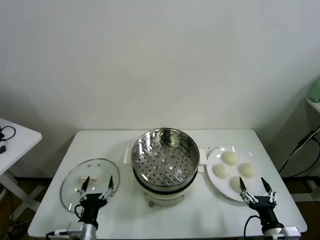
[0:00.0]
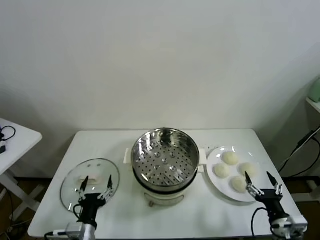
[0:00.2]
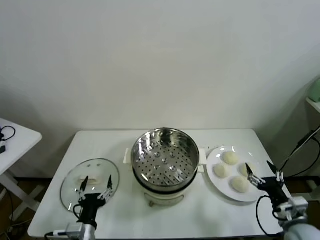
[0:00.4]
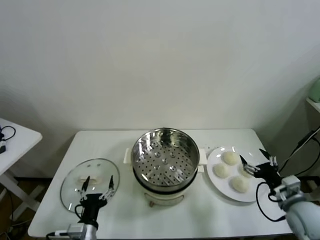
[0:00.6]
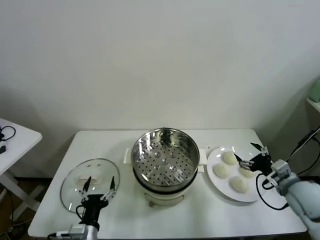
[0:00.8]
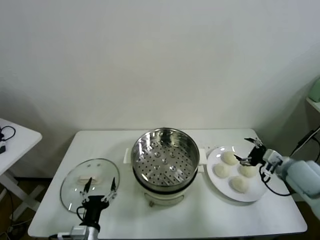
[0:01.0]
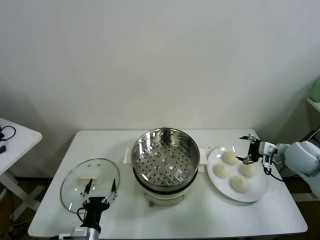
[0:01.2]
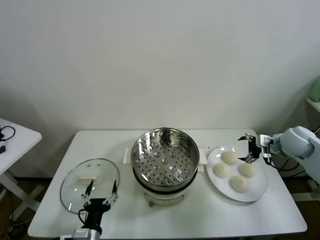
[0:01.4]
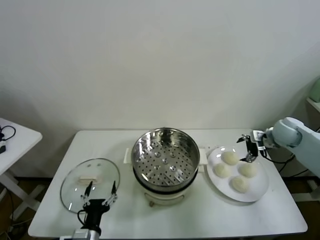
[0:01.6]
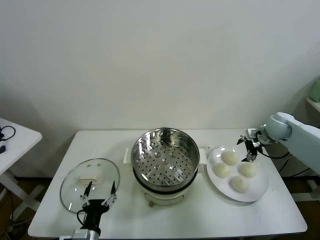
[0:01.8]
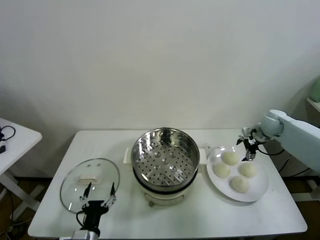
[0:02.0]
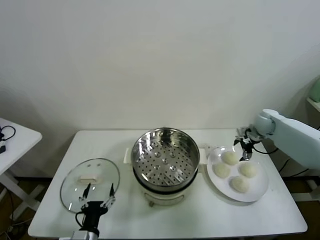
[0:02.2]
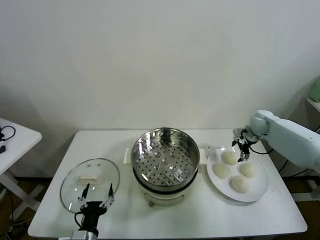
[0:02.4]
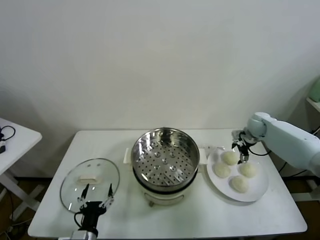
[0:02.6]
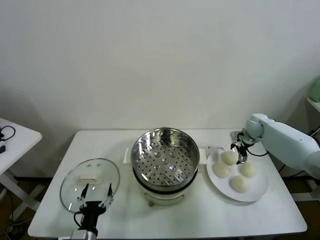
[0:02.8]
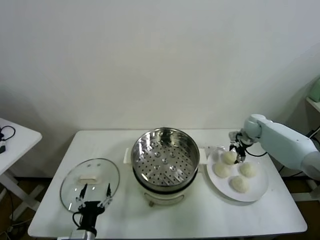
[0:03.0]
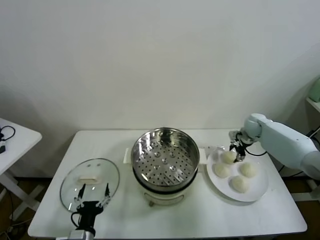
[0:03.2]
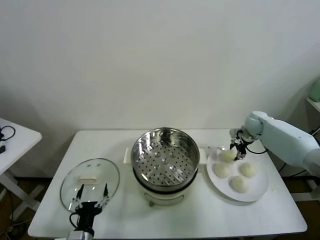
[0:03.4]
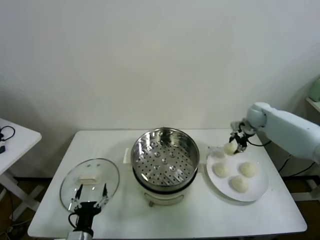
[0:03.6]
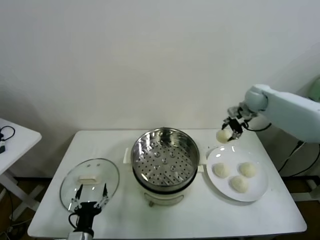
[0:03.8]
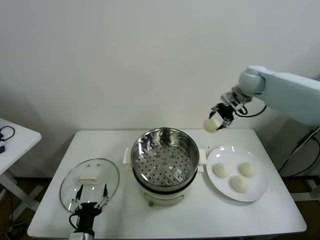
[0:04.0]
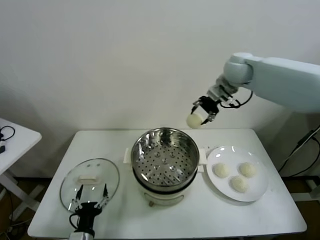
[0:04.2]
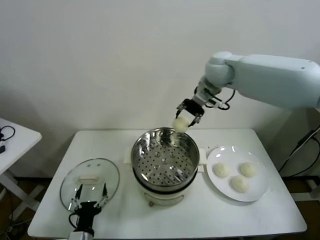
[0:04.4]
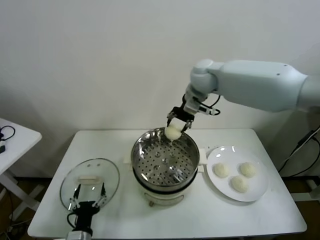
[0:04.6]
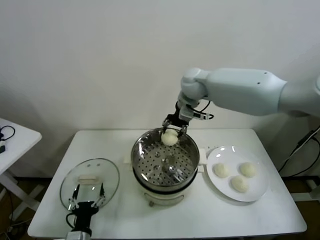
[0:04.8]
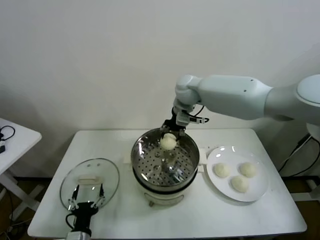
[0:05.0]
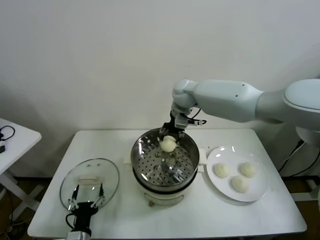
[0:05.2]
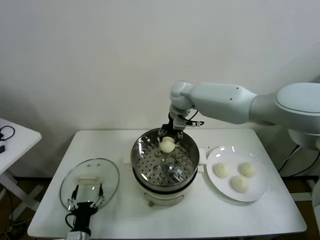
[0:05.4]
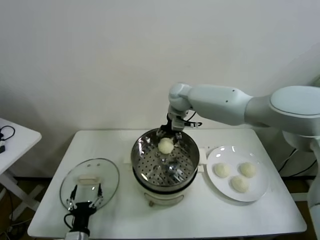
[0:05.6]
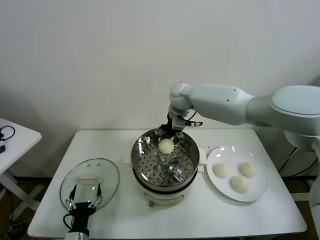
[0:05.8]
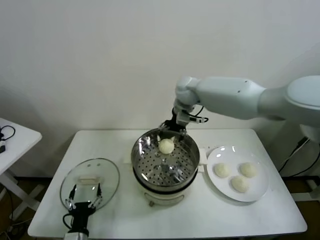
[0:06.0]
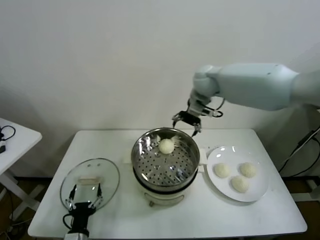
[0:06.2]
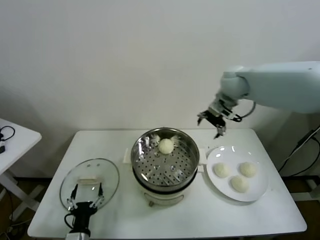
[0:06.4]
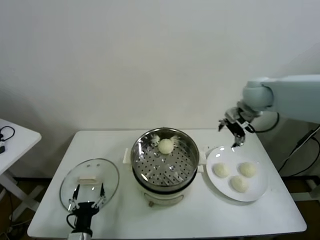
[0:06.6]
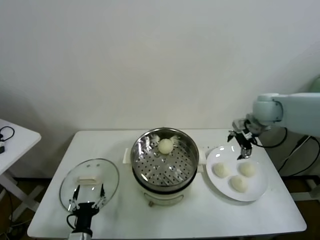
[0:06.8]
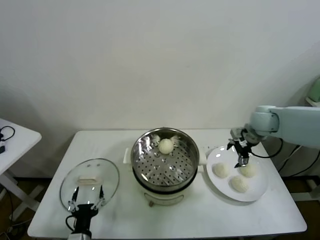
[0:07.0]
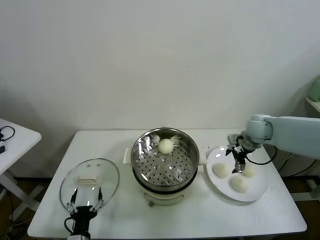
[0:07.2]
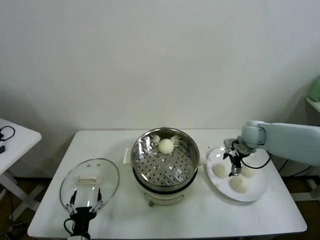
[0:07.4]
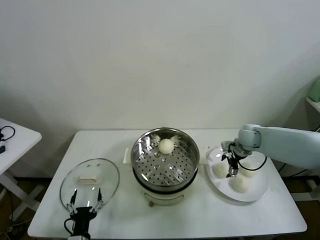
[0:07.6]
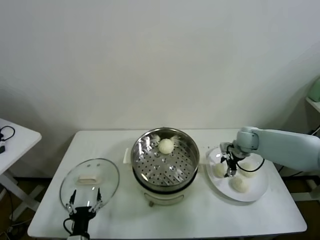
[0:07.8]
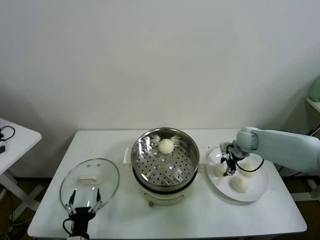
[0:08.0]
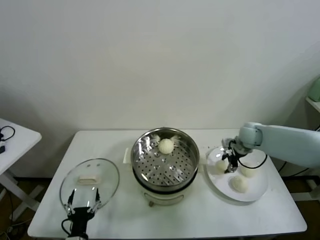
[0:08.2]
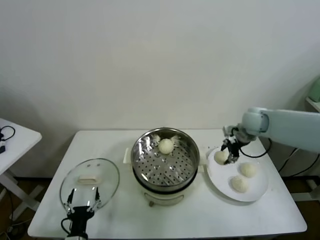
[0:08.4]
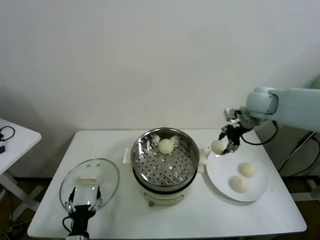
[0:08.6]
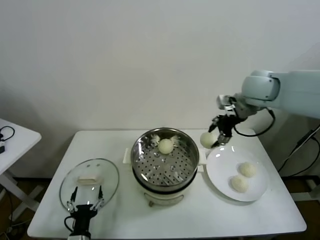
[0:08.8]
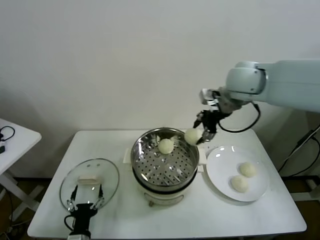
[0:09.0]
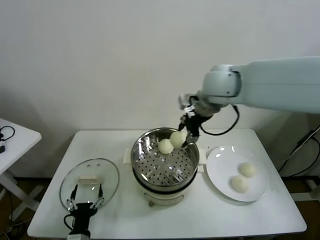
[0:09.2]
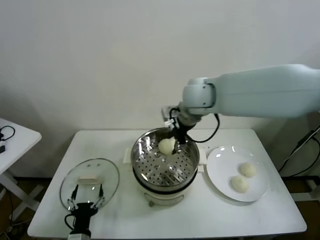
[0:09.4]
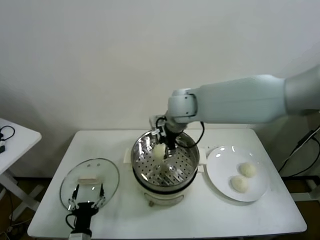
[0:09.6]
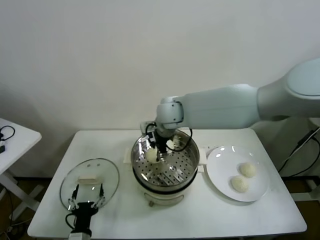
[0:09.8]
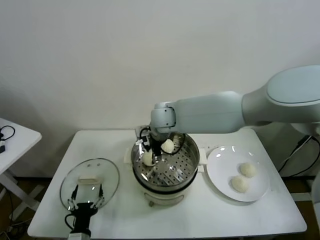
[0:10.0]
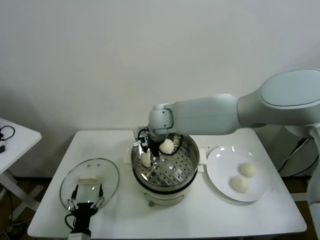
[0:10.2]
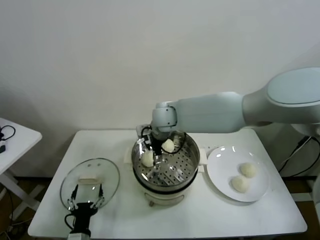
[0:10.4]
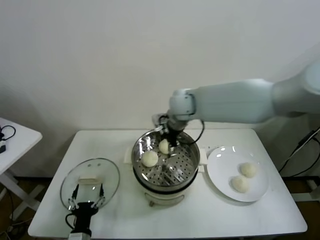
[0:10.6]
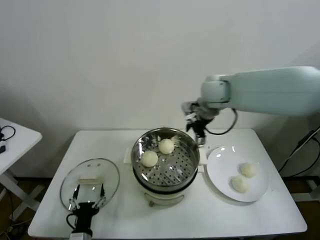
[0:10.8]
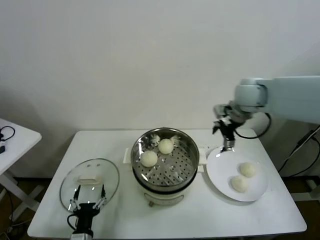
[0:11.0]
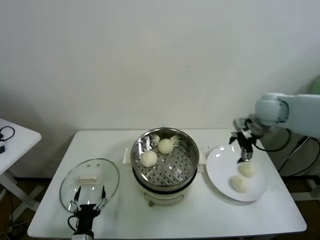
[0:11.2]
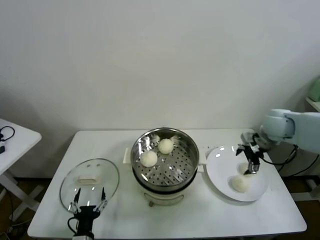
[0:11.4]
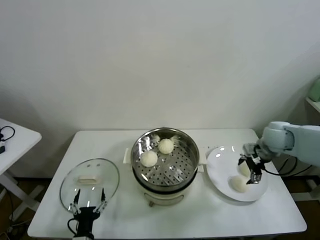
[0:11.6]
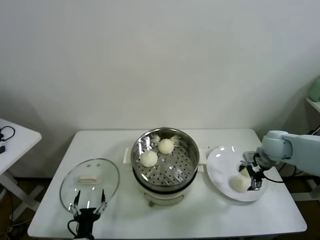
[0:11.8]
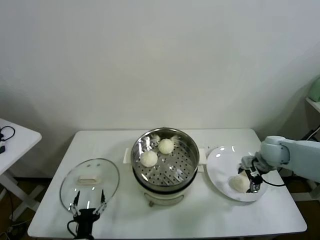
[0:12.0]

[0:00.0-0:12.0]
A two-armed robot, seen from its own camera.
Task of the whole recording: take steamed baozi put them in steamer.
Step, 0:00.0 to 0:03.0: Grasp the baozi in the plate with right gripper.
Step, 0:03.2 to 0:05.8: Place the baozi on the steamer with right gripper.
Step, 0:06.0 to 0:08.0: Grasp the baozi in the plate with right gripper.
Step, 0:08.2 to 0:10.2: Place the baozi on the steamer with right gripper.
0:01.6 to 0:03.0: The right gripper is displaced forward and downward by about 10 cm, and closes.
0:03.0 to 0:04.4: The right gripper moves upward and to the left, approximately 35 cm.
0:04.4 to 0:06.0: The right gripper goes some 10 cm downward and to the left, and opens.
0:06.0 to 0:07.6: The right gripper moves to the right and downward, approximately 30 cm.
0:07.6 to 0:09.0: The right gripper travels upward and to the left by some 30 cm, and closes.
0:09.0 to 0:10.4: The right gripper goes approximately 25 cm to the left and downward, and opens up.
0:10.4 to 0:12.0: The right gripper travels to the right by about 40 cm.

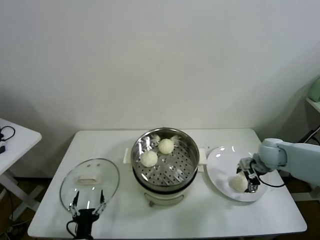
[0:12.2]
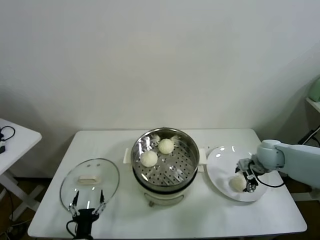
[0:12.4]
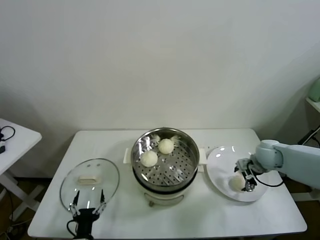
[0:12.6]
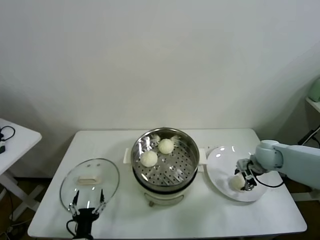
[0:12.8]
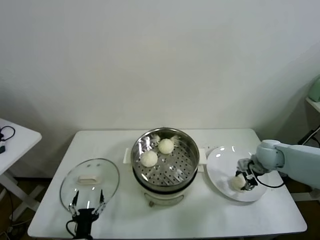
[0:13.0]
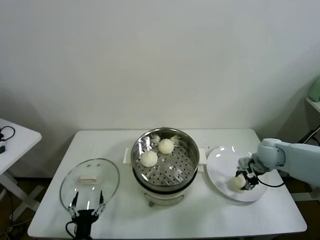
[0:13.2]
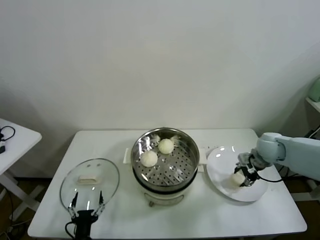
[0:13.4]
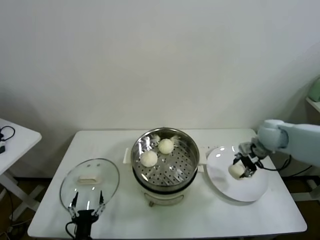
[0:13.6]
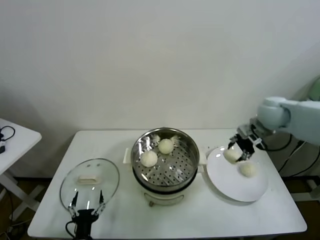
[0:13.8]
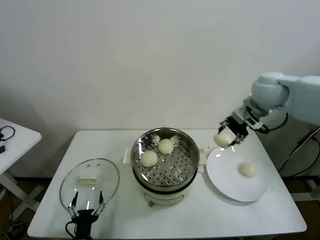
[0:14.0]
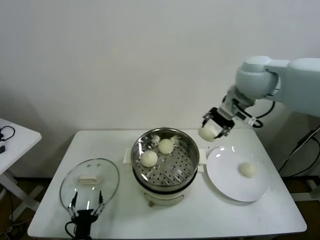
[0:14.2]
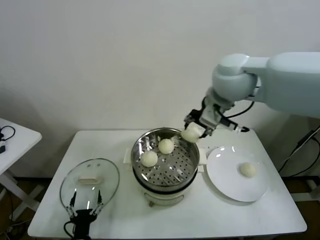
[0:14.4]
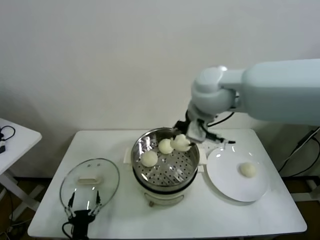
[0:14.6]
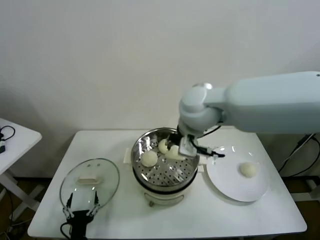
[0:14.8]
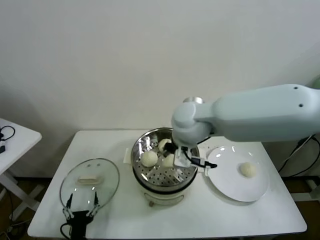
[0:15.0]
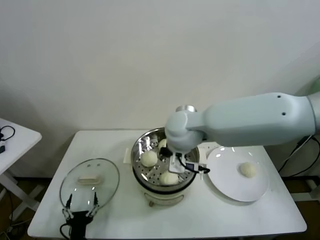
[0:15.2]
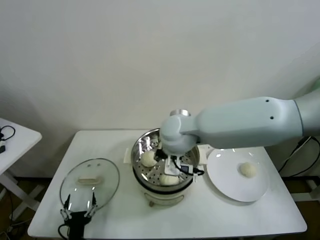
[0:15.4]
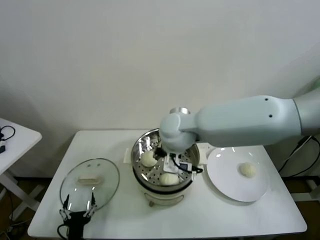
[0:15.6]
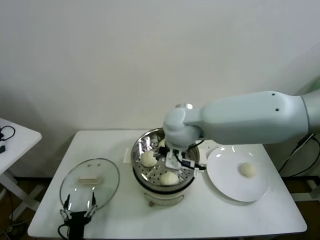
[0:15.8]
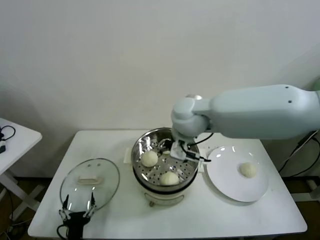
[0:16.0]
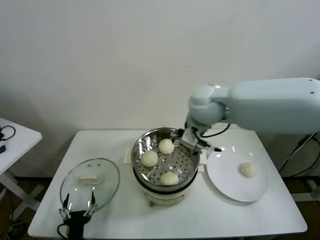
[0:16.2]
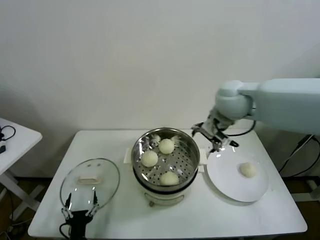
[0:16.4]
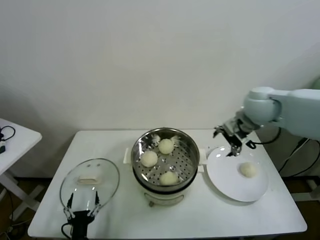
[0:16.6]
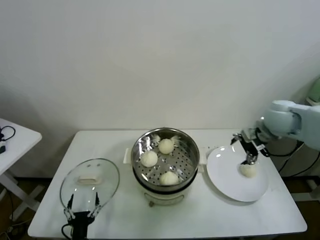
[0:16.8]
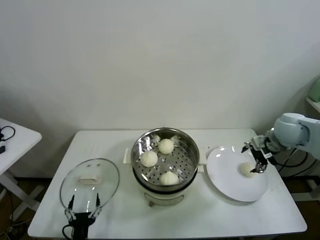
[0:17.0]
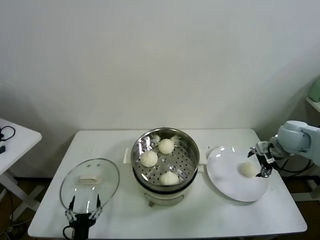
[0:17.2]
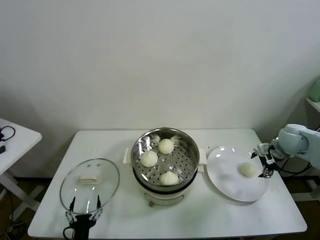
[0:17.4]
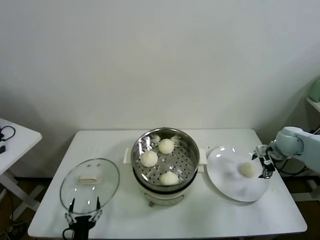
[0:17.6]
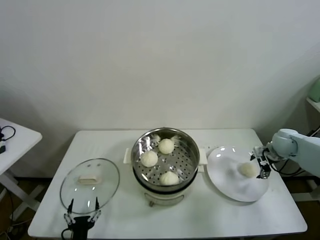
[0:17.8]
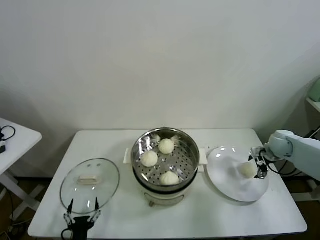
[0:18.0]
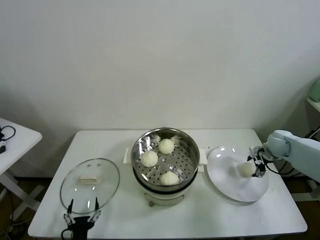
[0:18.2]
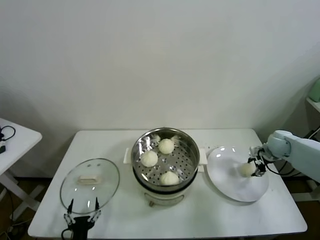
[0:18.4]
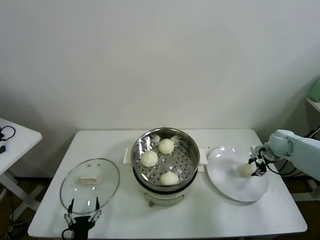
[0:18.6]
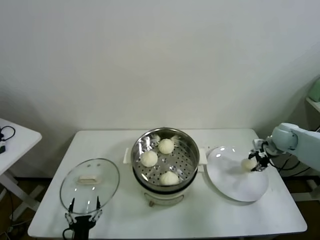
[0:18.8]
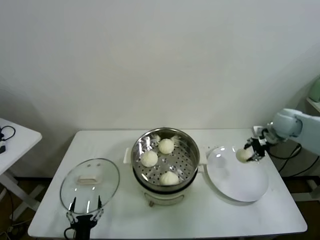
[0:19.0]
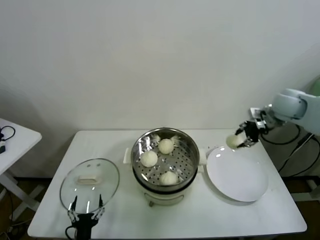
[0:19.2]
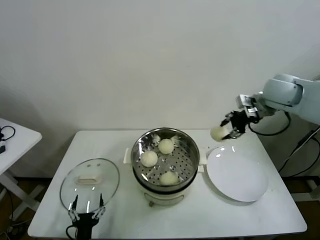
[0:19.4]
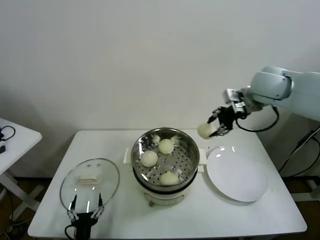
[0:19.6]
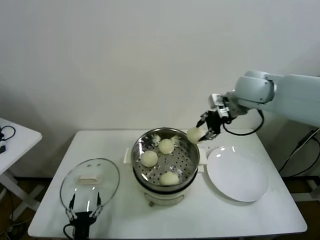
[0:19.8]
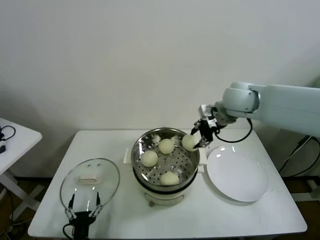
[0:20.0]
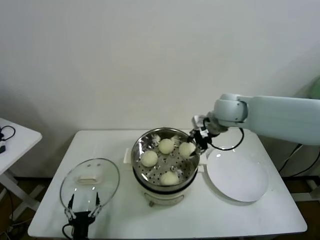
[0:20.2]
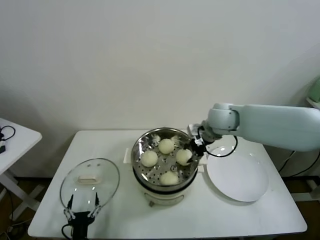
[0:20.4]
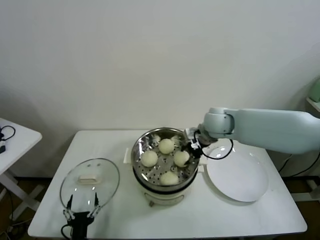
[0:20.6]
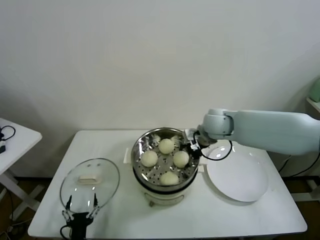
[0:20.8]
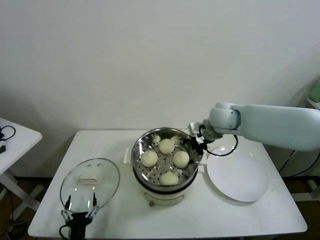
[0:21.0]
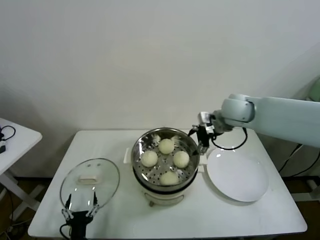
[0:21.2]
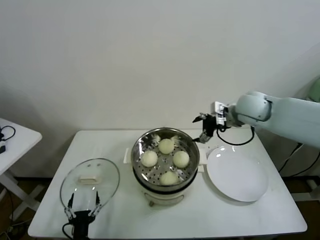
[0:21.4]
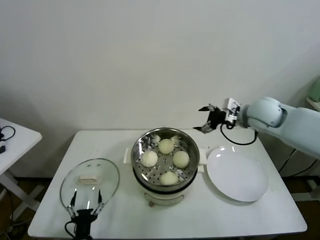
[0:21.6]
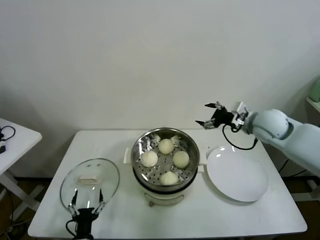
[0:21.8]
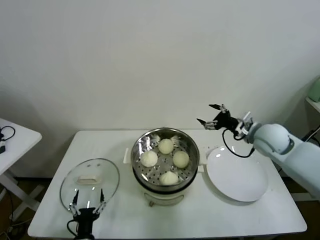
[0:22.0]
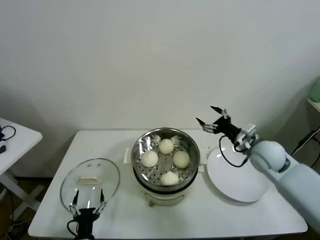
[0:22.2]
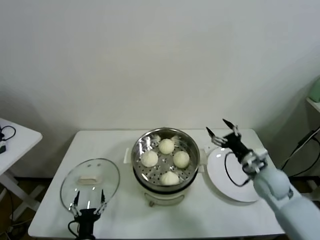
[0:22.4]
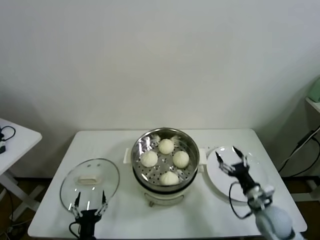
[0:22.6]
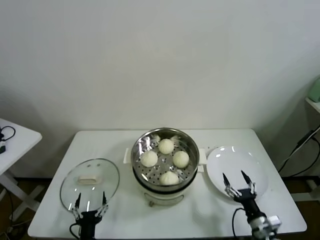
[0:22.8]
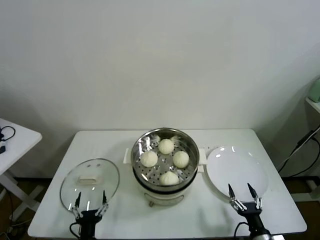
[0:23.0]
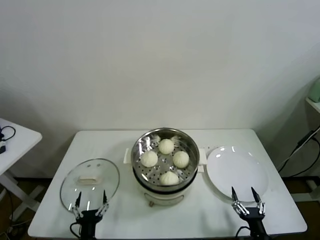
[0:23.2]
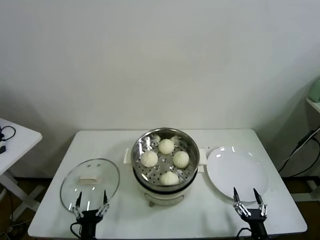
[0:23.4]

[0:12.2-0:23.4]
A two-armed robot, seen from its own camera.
Task of the whole recording: take steamed baozi put them in steamer.
Step, 0:13.2 to 0:15.2: Place the baozi on the steamer with right gripper.
Step, 0:15.4 to 0:18.4: Grasp the baozi in the plate with right gripper.
Step, 0:18.6 to 0:20.8: Place the baozi on the steamer with right gripper.
0:12.2 to 0:13.8: The right gripper moves upward, roughly 15 cm, and closes up.
0:13.8 to 0:15.4: The right gripper goes about 30 cm to the left.
0:15.4 to 0:17.0: The right gripper moves to the right, about 35 cm, and opens its fingers.
0:17.0 to 0:18.6: The right gripper shifts roughly 15 cm downward and to the right, and closes its fingers.
0:18.6 to 0:20.2: The right gripper shifts roughly 30 cm to the left and upward.
0:20.2 to 0:21.8: The right gripper moves to the right, some 10 cm, and opens up.
0:21.8 to 0:23.4: The right gripper moves backward and downward, roughly 50 cm.
